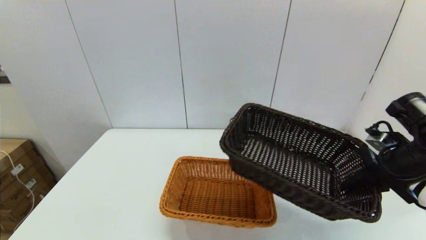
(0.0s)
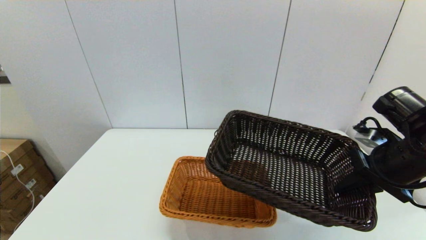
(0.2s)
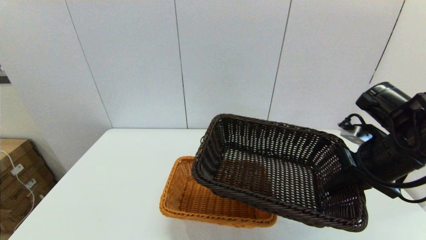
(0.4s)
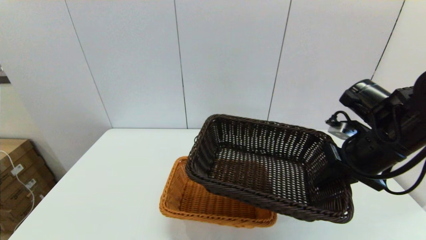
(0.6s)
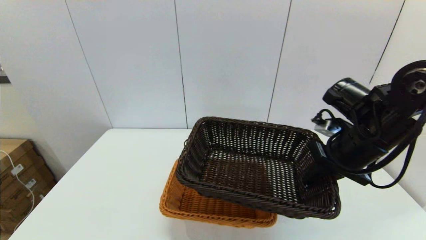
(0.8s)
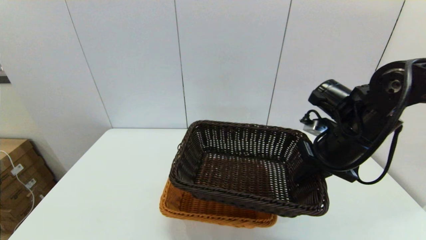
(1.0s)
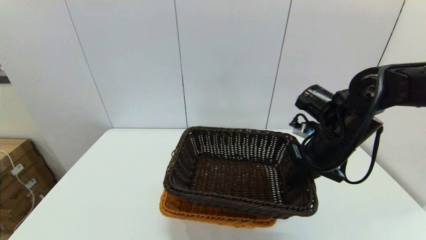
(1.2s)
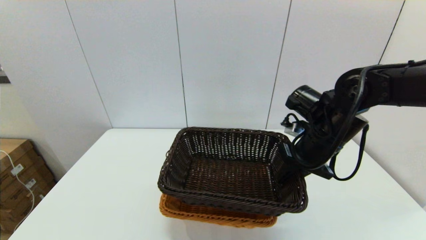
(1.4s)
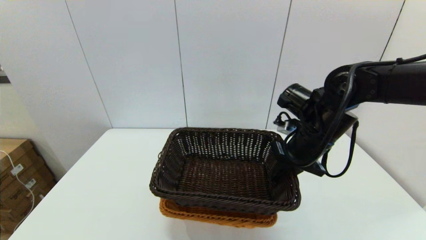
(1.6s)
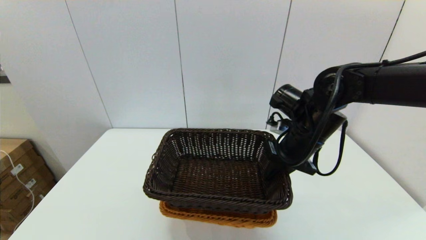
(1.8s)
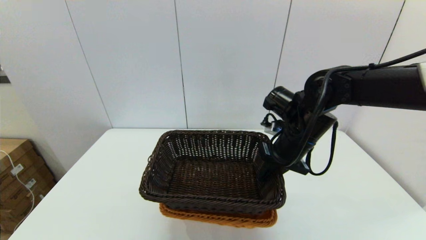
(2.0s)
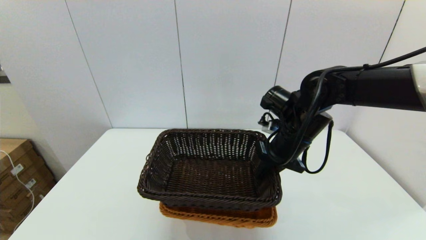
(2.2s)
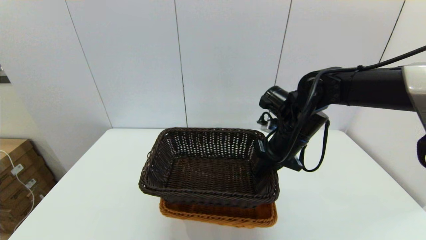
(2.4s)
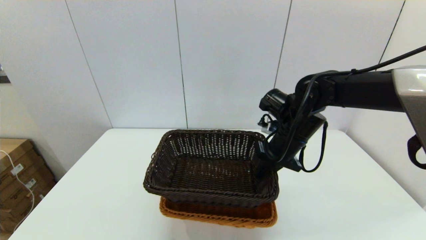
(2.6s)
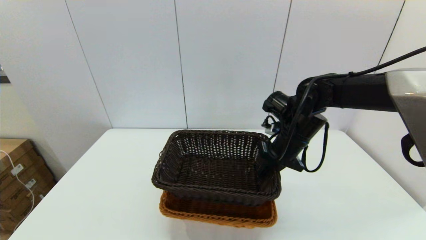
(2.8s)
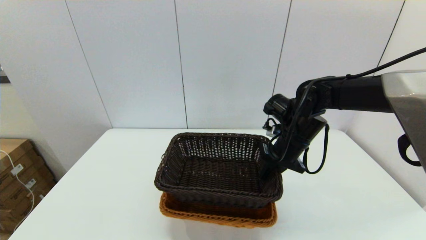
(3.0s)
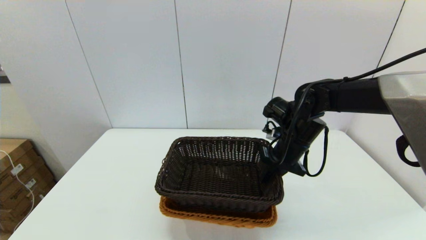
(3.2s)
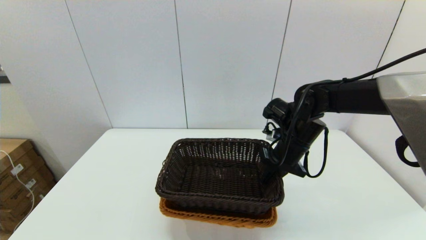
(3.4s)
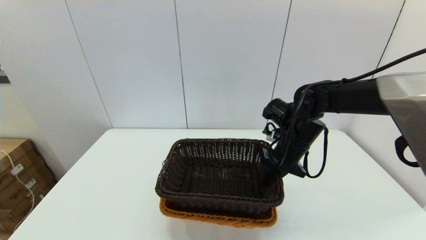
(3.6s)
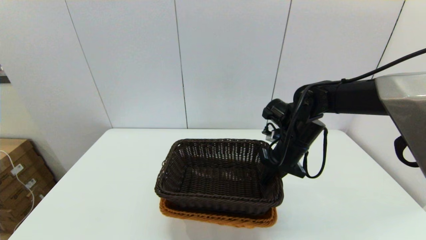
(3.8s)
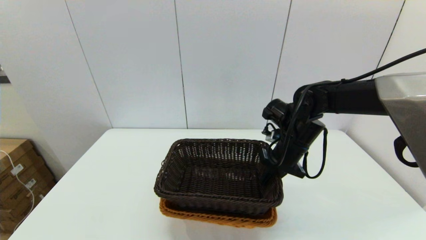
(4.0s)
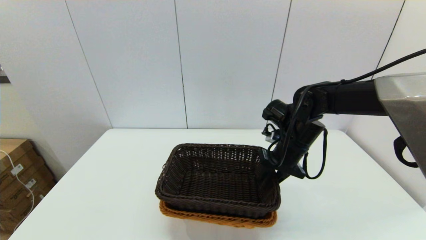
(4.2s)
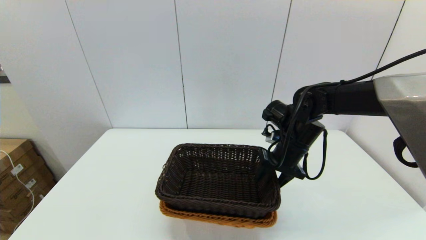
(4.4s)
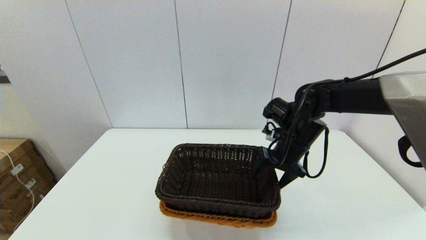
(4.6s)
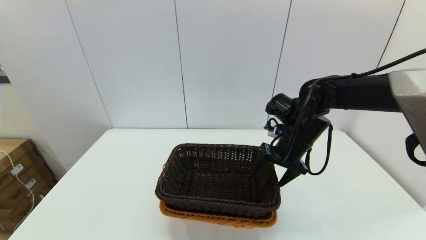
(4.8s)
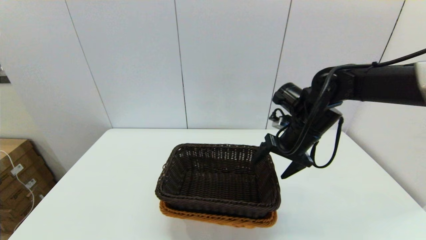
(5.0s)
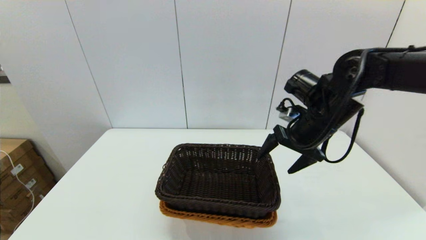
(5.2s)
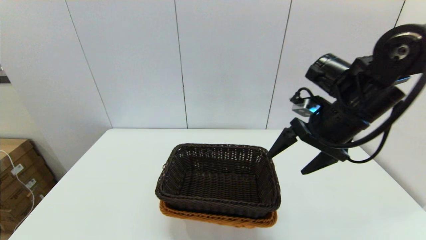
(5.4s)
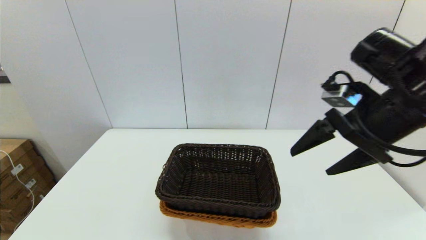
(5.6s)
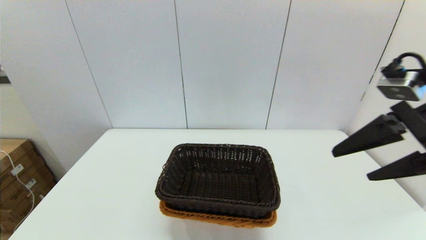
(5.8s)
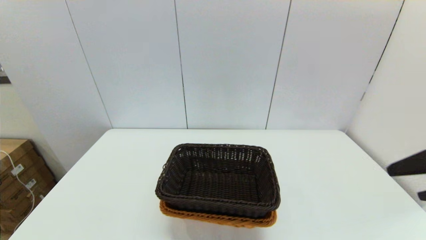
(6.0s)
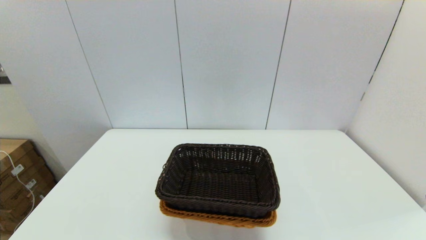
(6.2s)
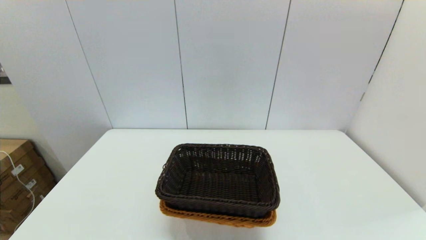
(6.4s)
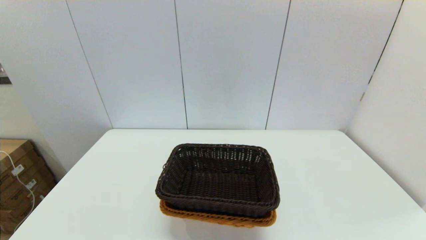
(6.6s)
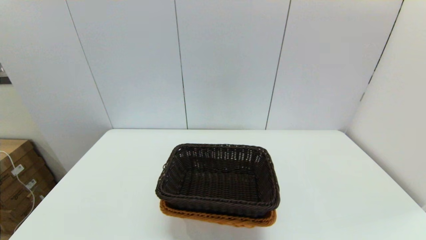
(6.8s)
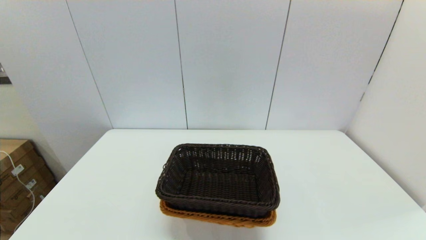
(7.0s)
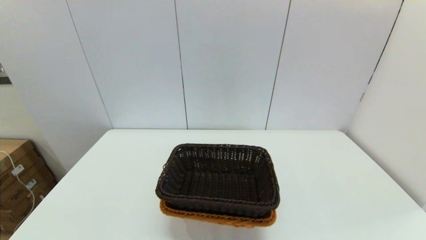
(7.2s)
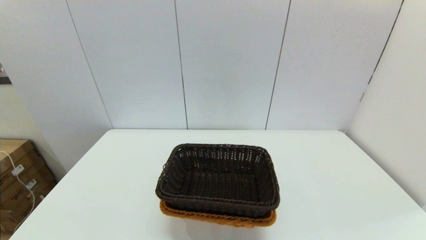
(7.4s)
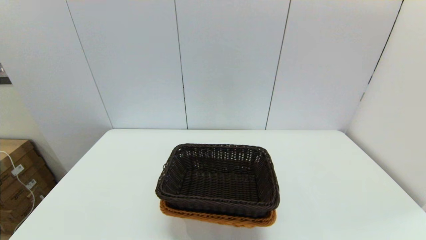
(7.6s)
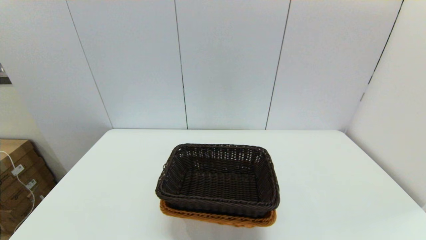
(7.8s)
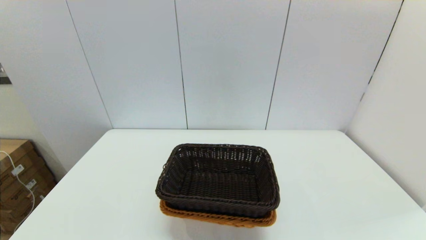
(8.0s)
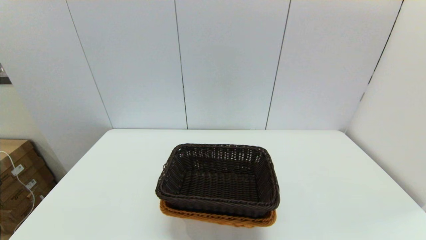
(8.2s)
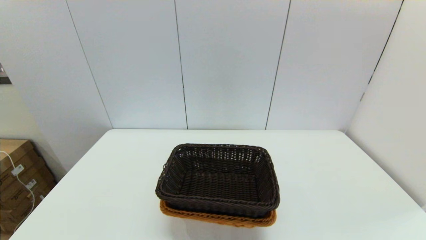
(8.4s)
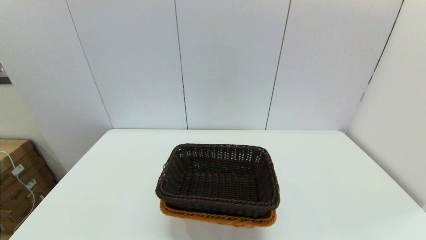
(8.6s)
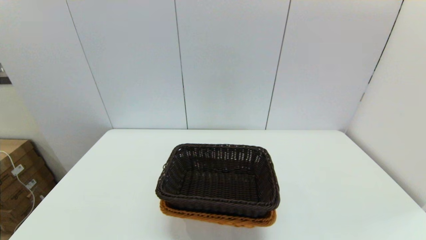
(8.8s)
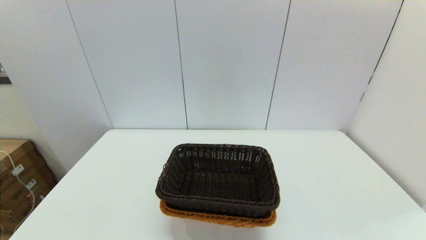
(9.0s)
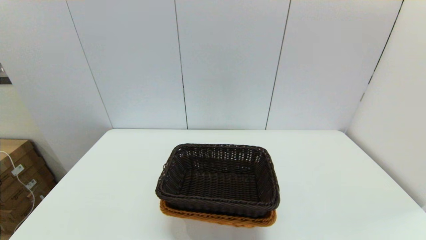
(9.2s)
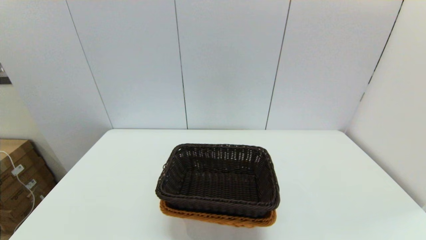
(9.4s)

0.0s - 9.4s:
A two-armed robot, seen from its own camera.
Task of the whole recording: stack a basket on top of another basket.
Step, 0.0s - 5.0s: Place the dark basket into the light color basket with the right gripper.
0.0s - 1.6s: The right gripper moves to the left and forward, some 15 cm.
1.6s - 3.2s: The right gripper ends up roughly 5 cm from where it was.
3.2s - 4.8s: The right gripper opens up.
4.8s - 6.2s: The right gripper moves backward, to the right and upward, roughly 35 cm.

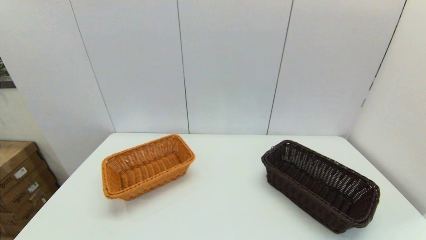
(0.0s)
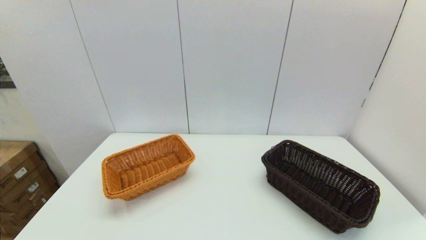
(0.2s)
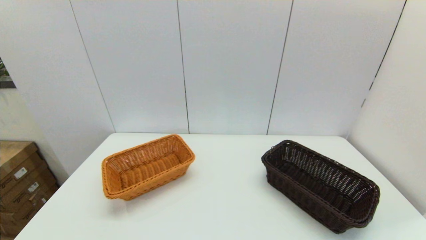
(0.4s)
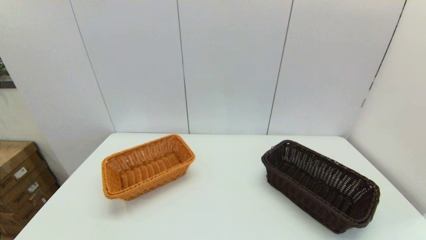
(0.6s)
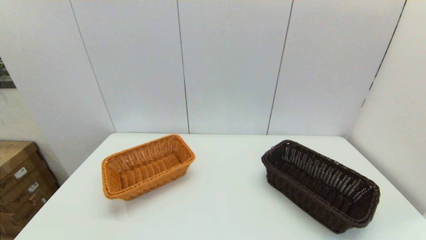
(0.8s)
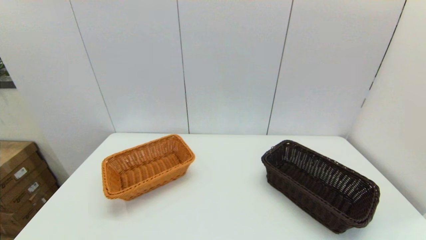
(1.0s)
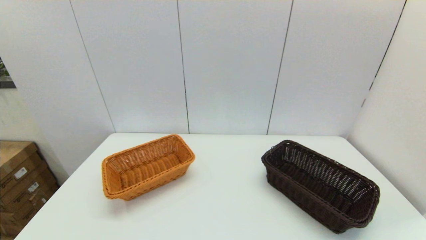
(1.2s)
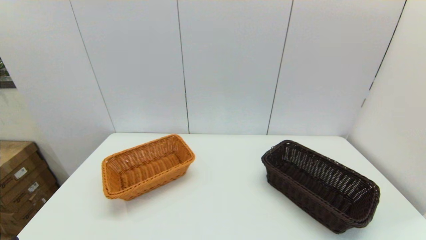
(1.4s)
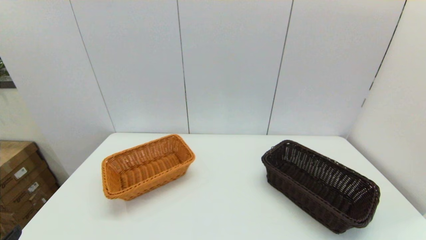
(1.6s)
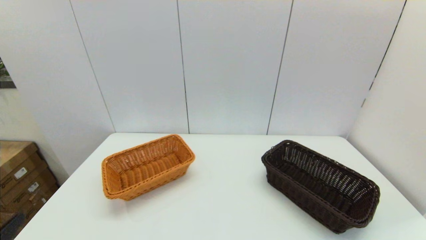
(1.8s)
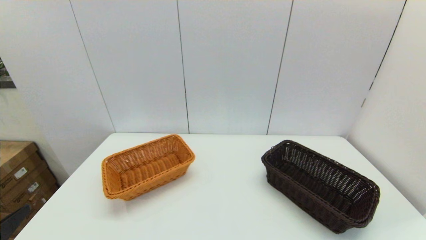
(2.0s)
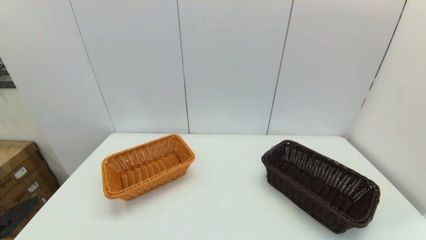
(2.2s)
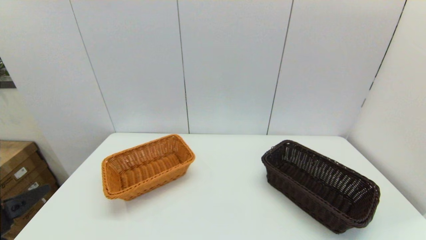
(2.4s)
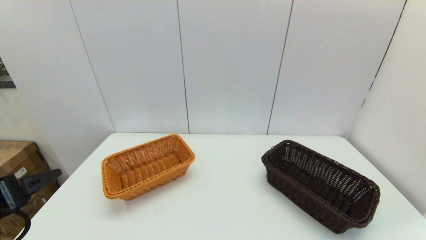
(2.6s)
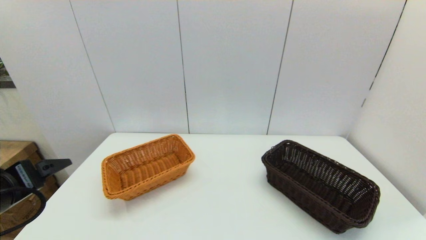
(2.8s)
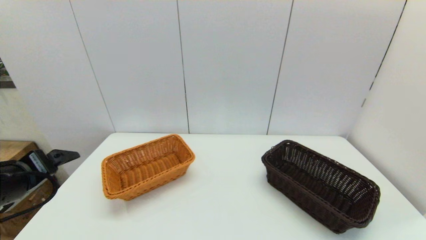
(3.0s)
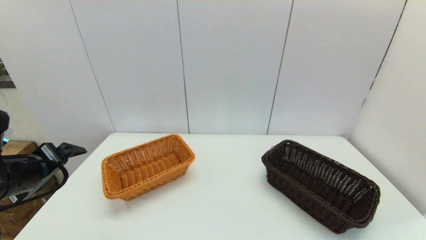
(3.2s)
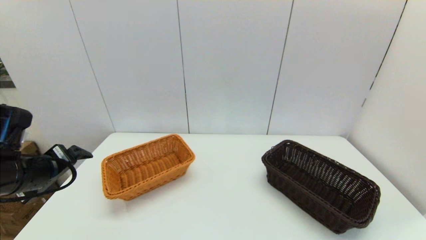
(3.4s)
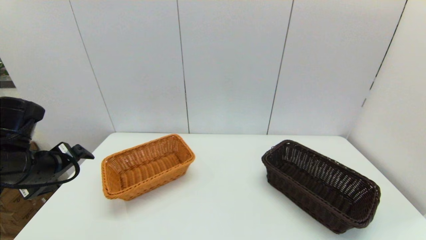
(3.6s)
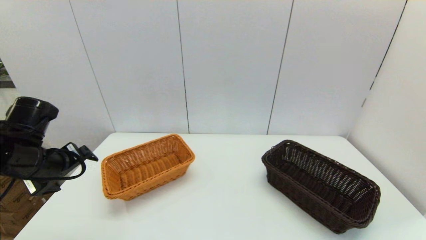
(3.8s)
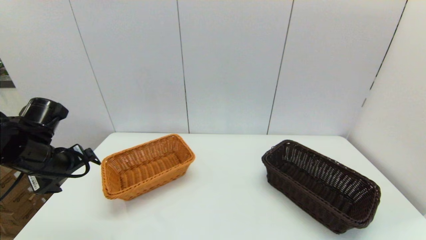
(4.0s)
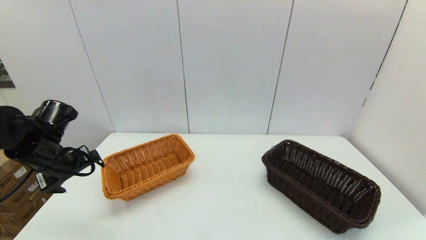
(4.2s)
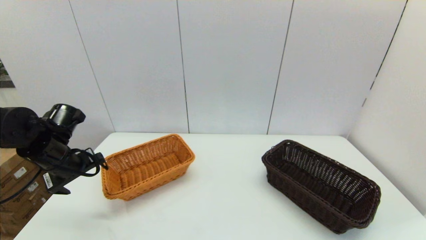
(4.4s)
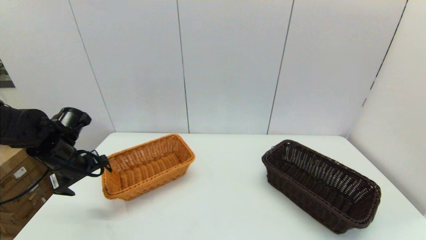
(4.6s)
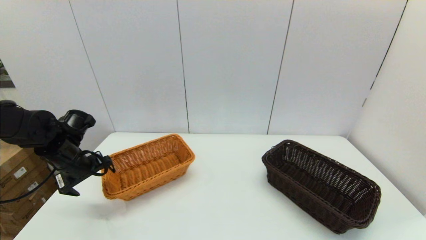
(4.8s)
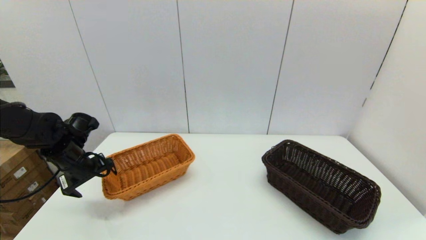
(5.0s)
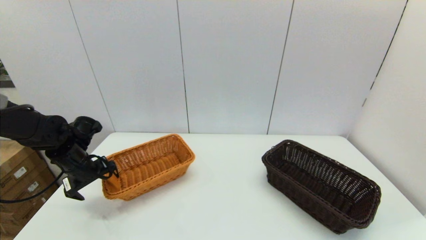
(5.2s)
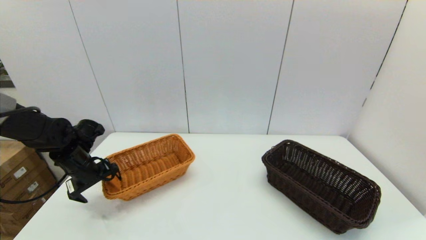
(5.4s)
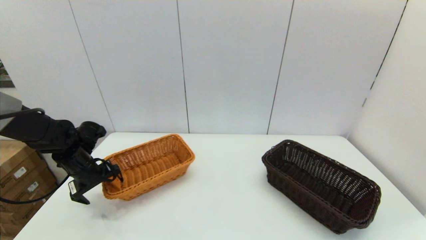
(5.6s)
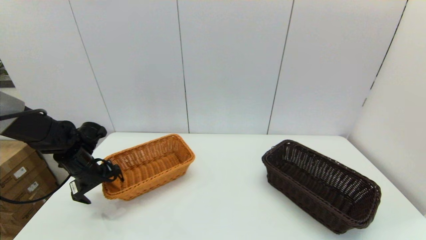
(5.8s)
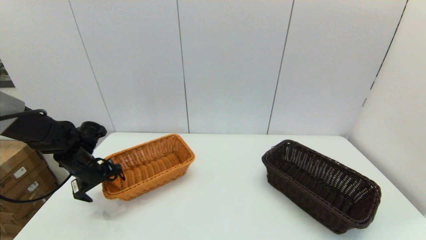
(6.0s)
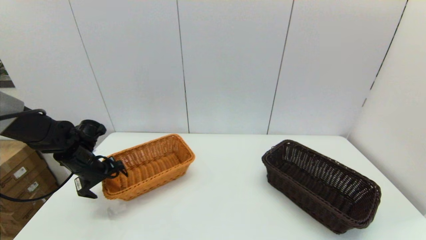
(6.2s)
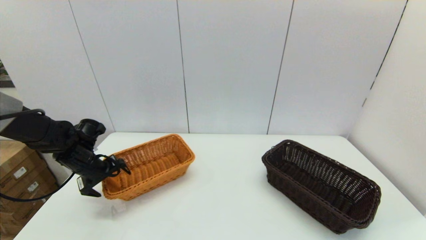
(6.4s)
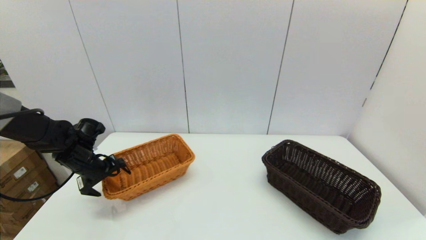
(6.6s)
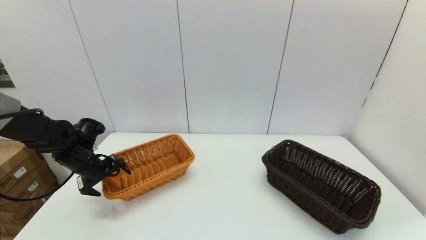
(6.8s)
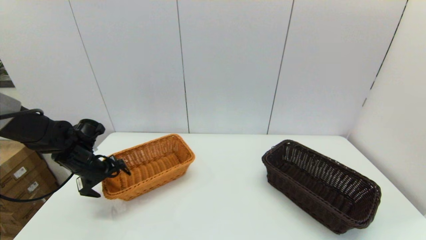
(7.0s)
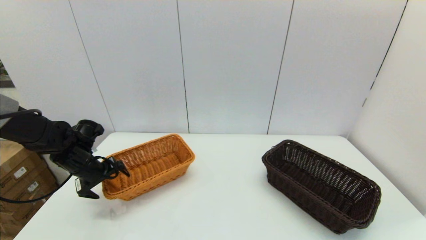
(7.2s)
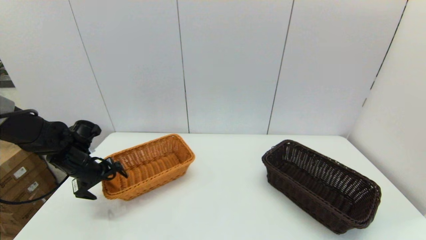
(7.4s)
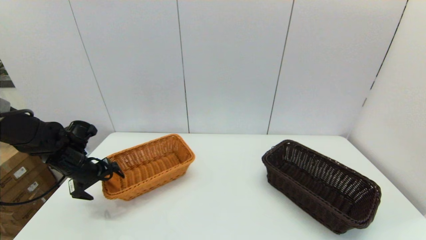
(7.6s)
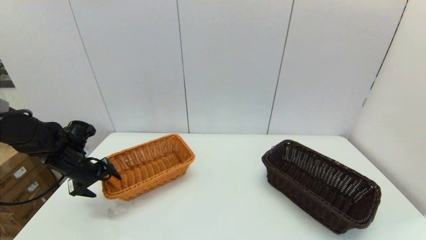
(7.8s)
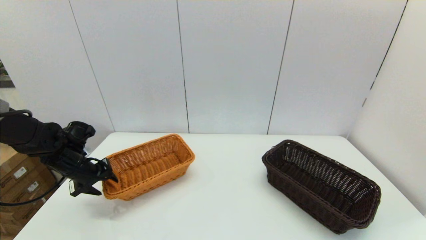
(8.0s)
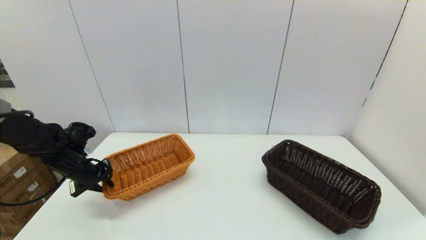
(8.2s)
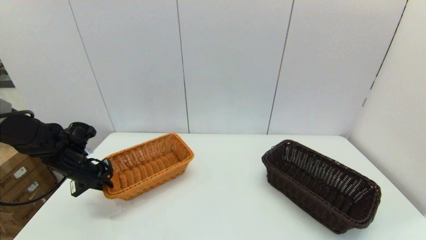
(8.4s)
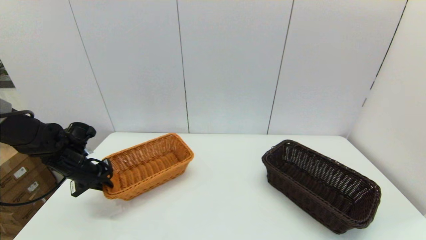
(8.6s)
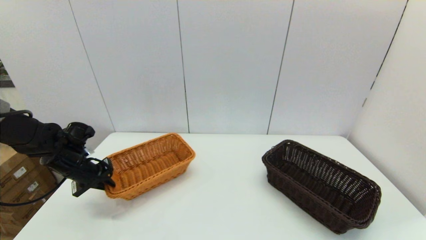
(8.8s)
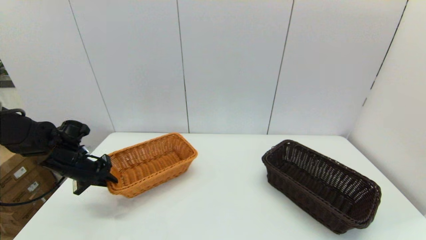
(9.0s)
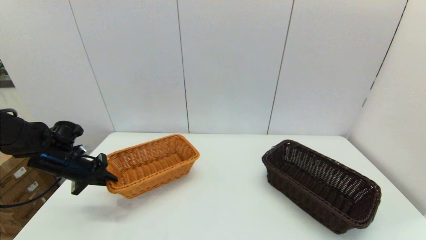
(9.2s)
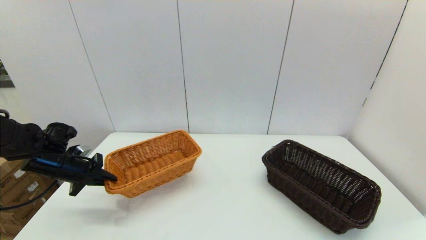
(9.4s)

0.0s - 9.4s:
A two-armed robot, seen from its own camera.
Task of the whole recording: stack a basket on top of another basket.
Step, 1.4s - 8.4s: Grasp the light basket with the left gripper.
1.6s - 3.2s: The left gripper shifts roughly 20 cm forward.
3.2s - 4.8s: The left gripper shifts roughly 15 cm forward and downward.
4.8s - 6.2s: The left gripper shifts by about 5 cm.
6.2s - 7.8s: The grippers move only a little.
7.8s - 9.4s: The left gripper closes up.
